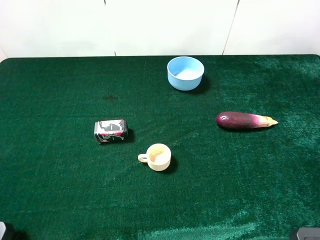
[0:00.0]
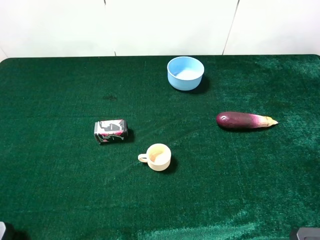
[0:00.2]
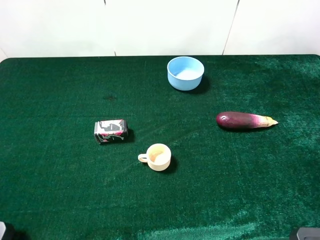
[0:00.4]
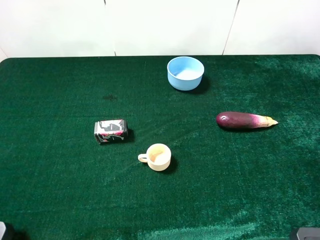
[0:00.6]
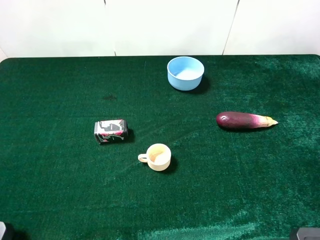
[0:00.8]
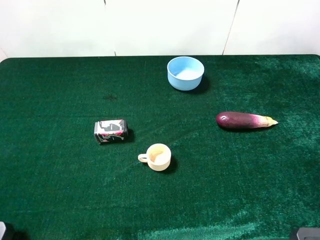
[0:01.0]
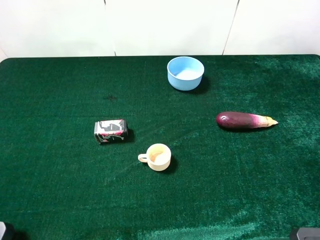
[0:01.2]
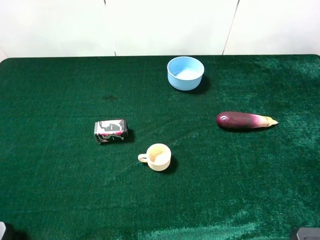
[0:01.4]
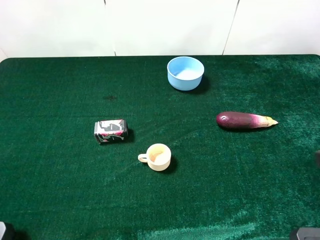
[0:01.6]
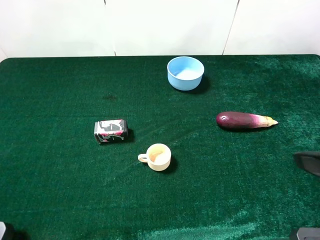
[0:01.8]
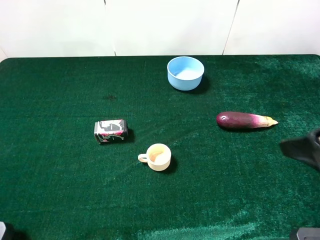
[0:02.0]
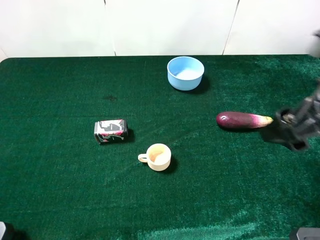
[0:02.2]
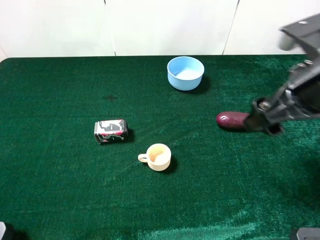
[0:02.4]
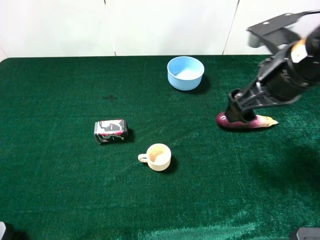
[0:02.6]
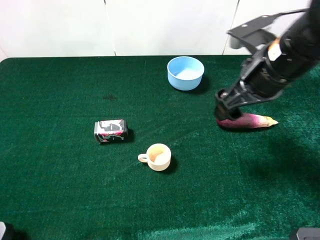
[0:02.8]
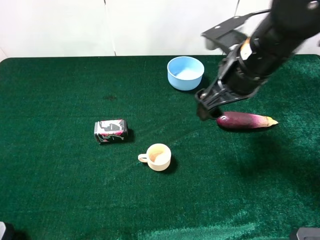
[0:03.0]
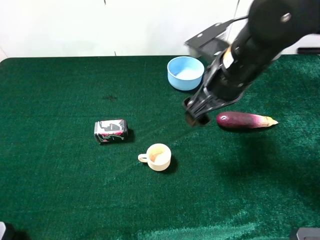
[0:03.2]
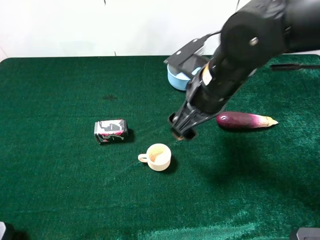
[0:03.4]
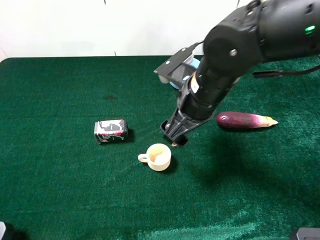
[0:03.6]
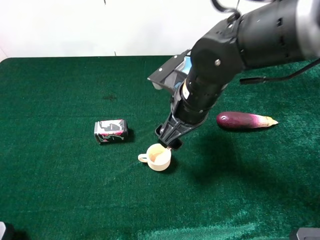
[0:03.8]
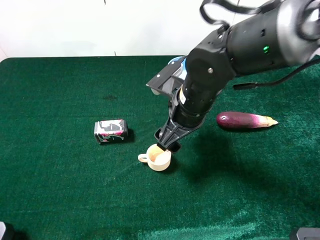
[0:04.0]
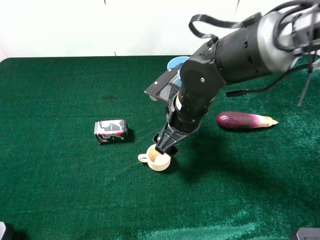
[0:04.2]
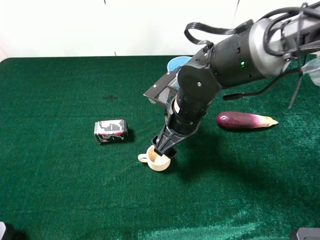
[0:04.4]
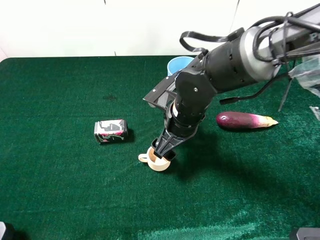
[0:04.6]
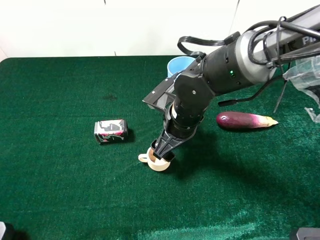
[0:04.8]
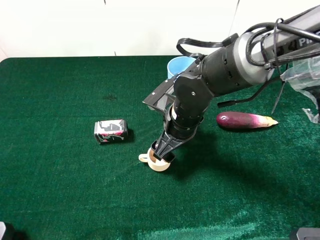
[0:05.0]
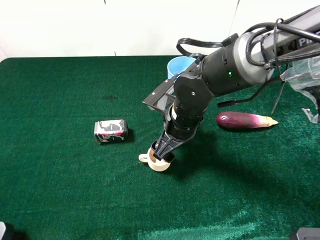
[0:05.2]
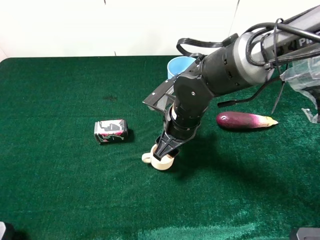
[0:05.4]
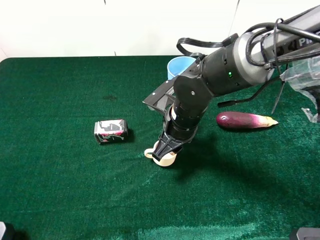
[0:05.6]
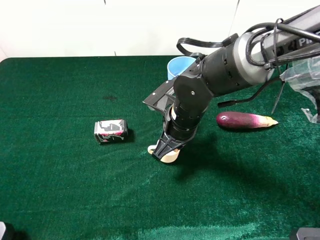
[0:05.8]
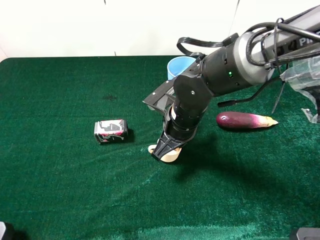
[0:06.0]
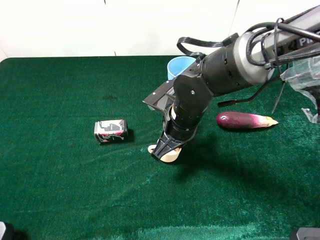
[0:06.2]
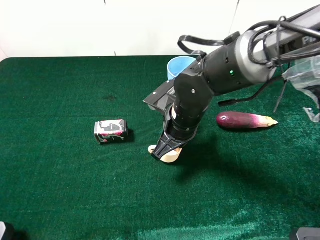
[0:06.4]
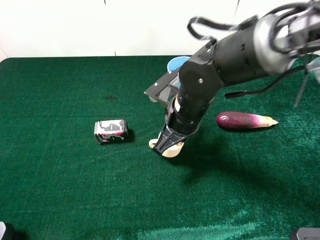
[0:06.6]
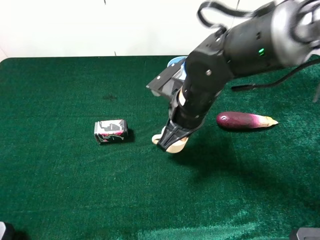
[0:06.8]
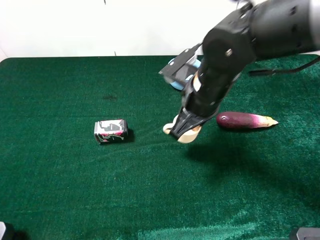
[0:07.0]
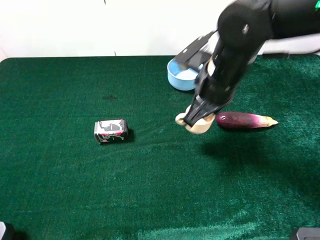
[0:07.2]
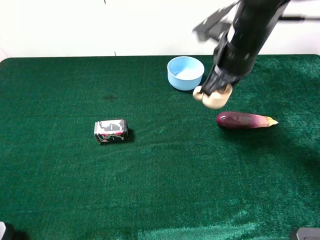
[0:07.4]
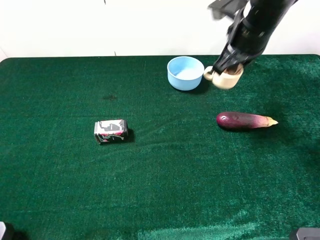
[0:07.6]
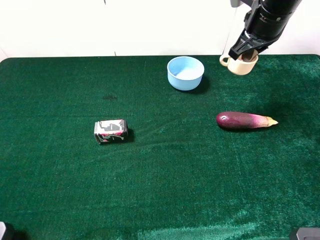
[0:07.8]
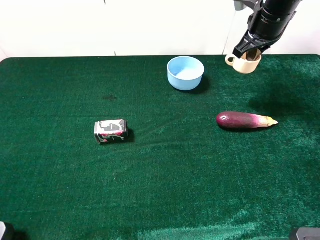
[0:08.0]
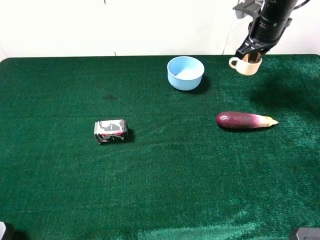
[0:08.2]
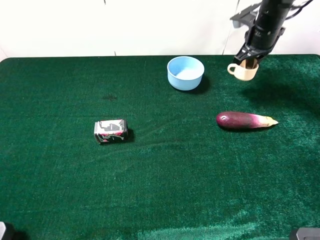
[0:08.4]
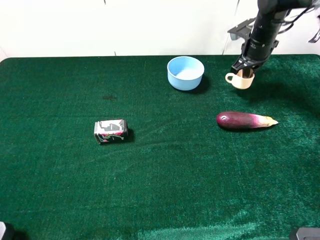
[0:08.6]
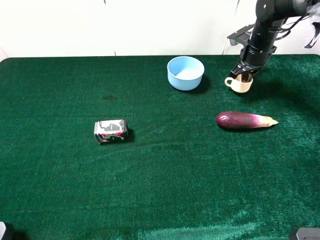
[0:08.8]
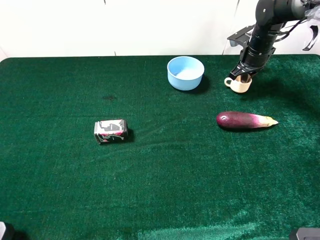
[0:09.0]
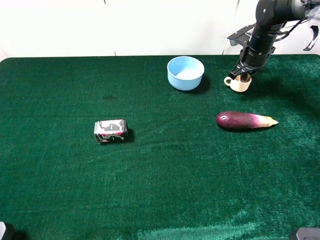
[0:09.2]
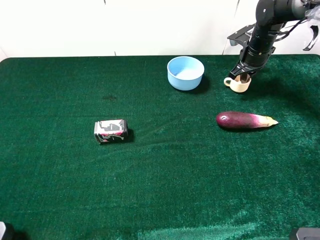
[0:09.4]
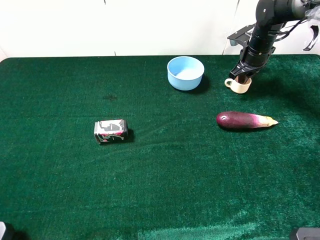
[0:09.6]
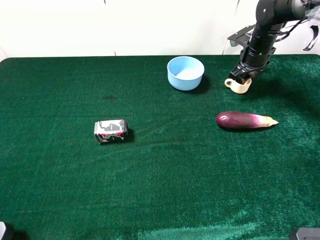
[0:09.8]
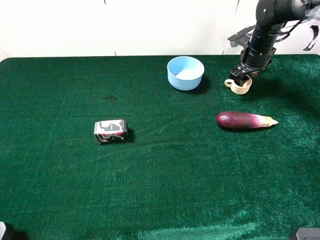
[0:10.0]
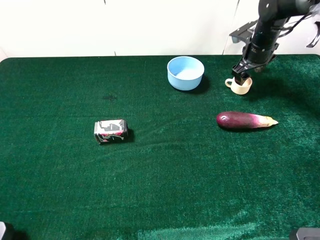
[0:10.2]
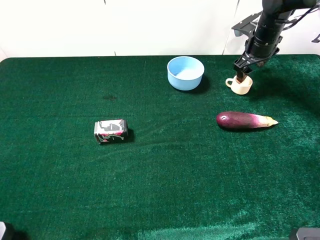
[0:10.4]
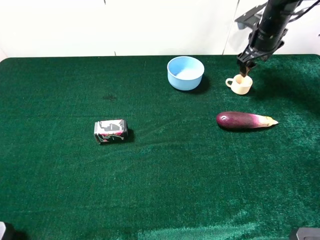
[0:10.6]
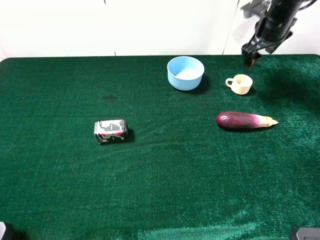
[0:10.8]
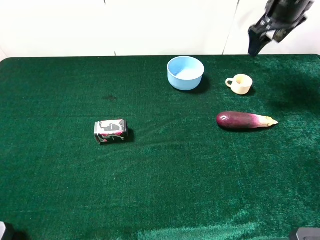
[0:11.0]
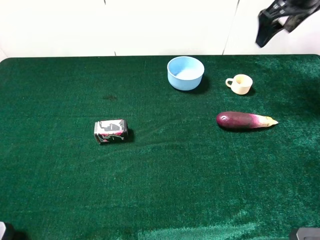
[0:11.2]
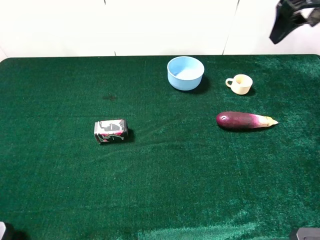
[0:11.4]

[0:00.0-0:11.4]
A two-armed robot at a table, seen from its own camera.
Task of the whole recording: the gripper move the object.
Step, 0:00.0 to 0:05.8: Grasp the teacup with the right gripper.
Step, 0:06.0 to 0:09.8: Place the teacup on the table with the right gripper.
0:01.4 to 0:02.8: The right gripper shifts approximately 25 cm forward and to the left.
0:02.8 to 0:04.2: The right gripper travels to the left and downward by approximately 15 cm.
0:04.2 to 0:05.6: The right gripper closes up.
0:05.6 to 0:07.2: The right gripper travels upward and to the right by some 10 cm, and closes up.
0:07.2 to 0:08.6: The right gripper heads forward and to the right, covering about 25 cm.
0:08.6 to 0:10.0: The right gripper opens.
0:10.0 to 0:11.4: The right gripper heads upward and backward, covering some 25 cm.

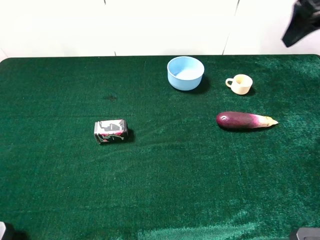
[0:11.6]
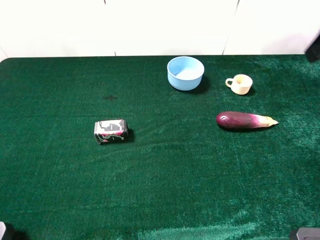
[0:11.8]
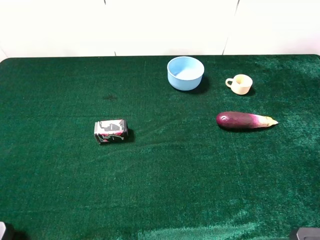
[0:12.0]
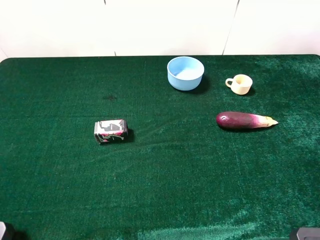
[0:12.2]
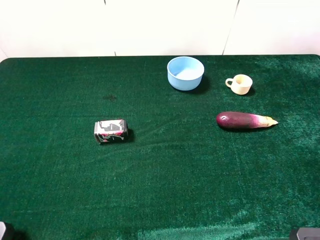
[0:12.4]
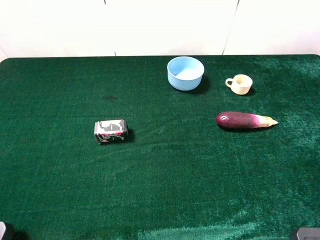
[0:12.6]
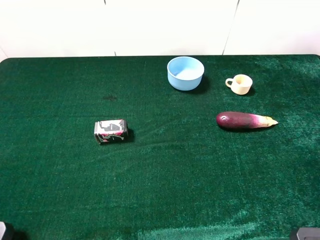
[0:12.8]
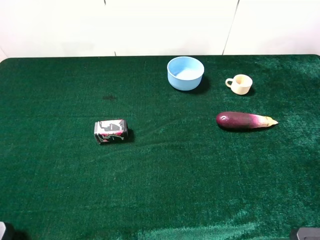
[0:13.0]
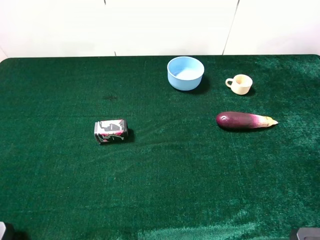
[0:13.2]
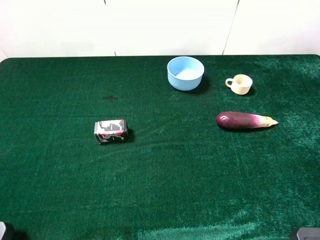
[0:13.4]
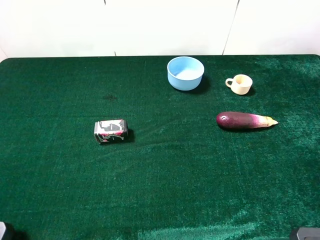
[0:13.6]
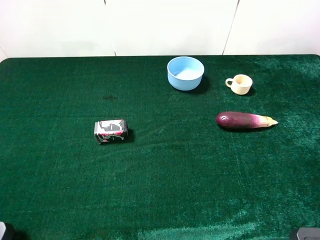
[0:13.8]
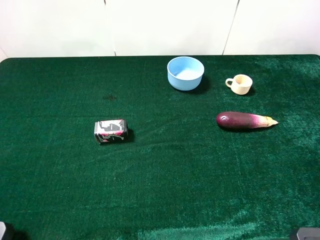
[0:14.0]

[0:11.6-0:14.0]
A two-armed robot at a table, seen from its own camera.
Task of the whole recording: the gripper move the object.
0:11.6 to 0:12.8: The right gripper moves backward, some 25 cm.
0:12.8 to 0:14.0: Both grippers stay about where they are.
